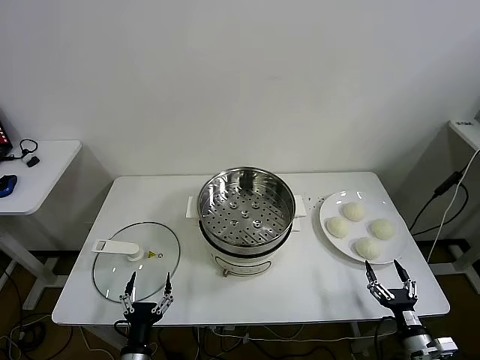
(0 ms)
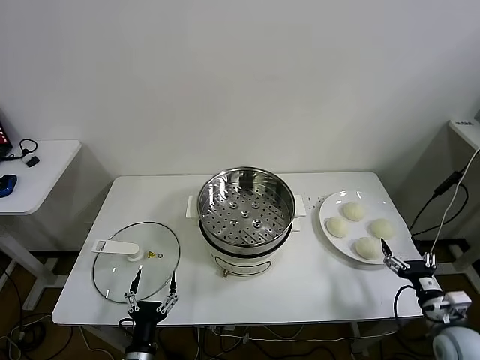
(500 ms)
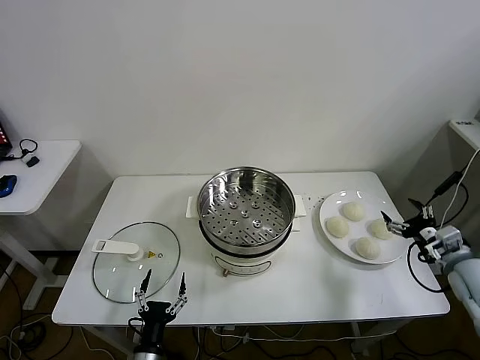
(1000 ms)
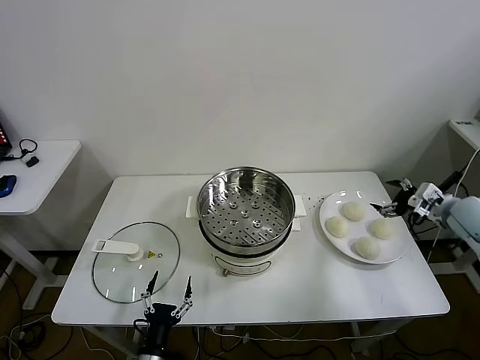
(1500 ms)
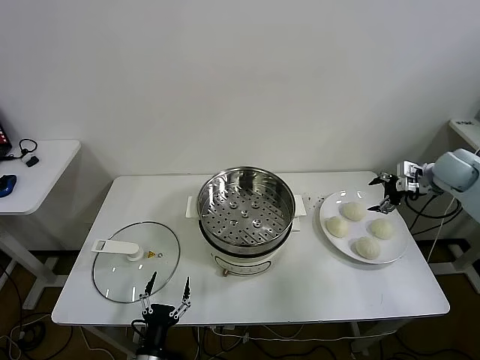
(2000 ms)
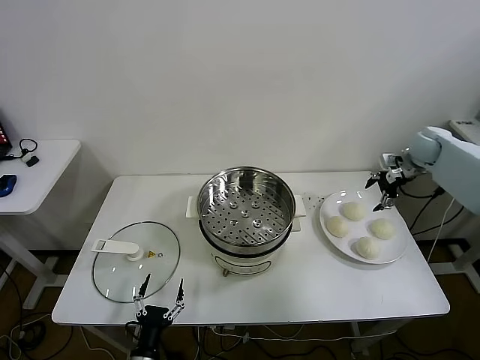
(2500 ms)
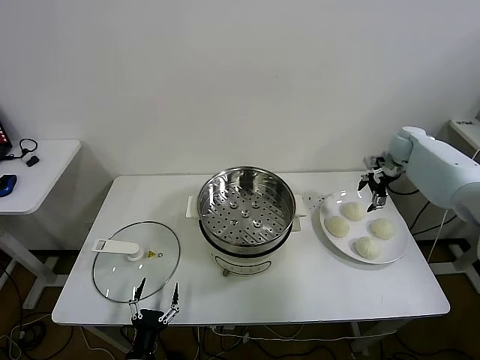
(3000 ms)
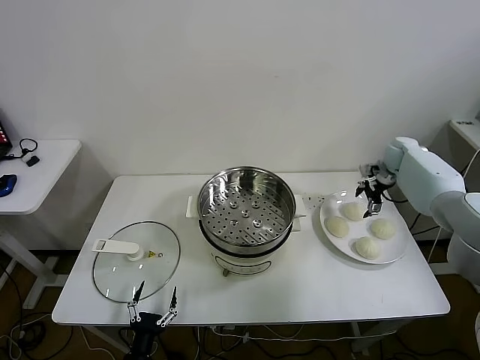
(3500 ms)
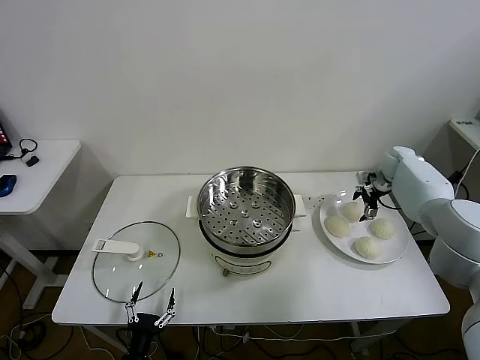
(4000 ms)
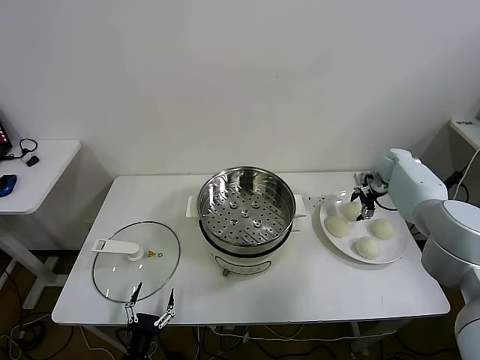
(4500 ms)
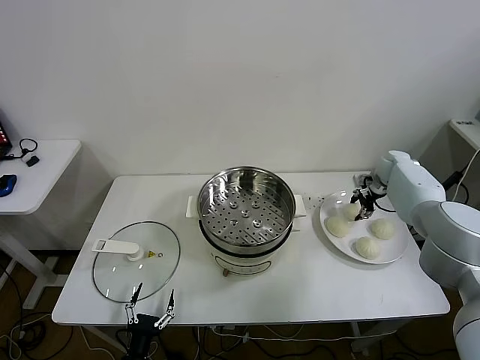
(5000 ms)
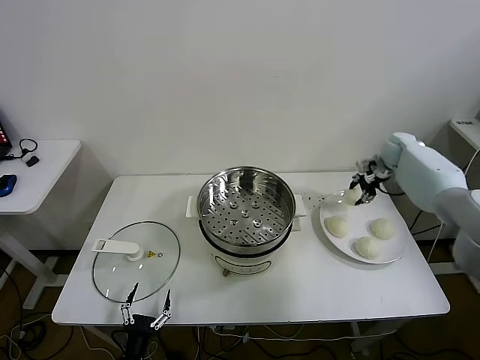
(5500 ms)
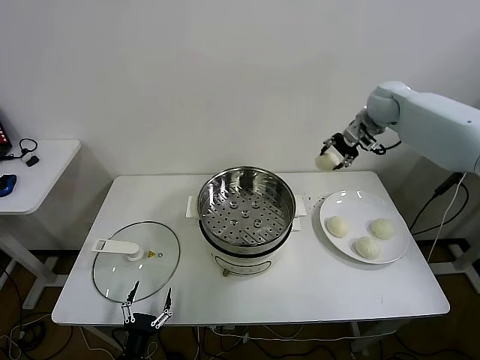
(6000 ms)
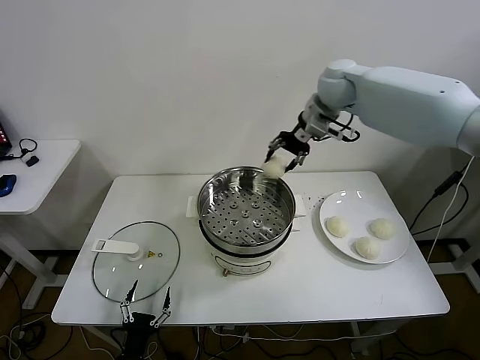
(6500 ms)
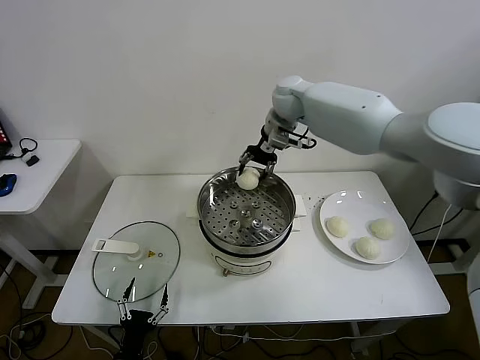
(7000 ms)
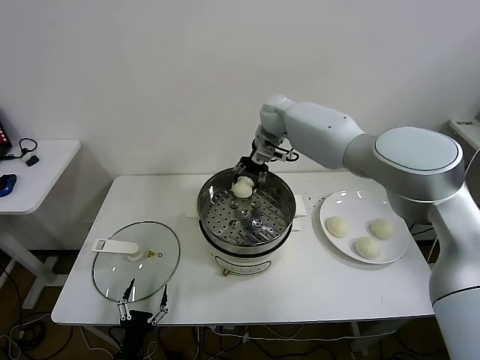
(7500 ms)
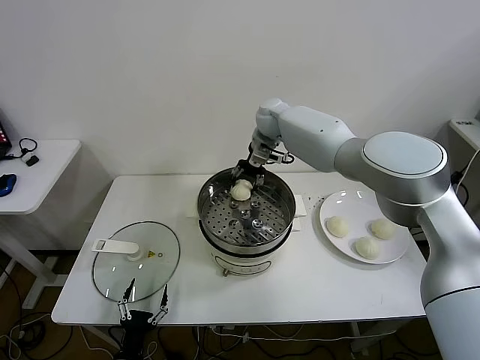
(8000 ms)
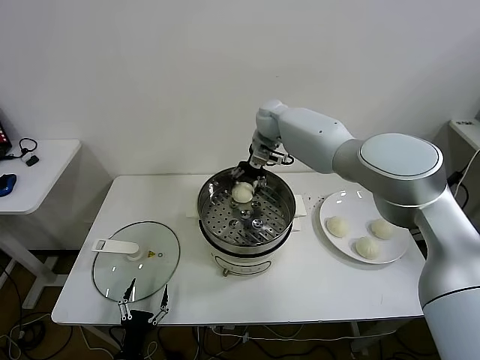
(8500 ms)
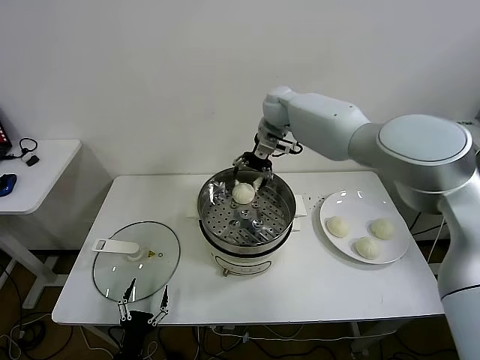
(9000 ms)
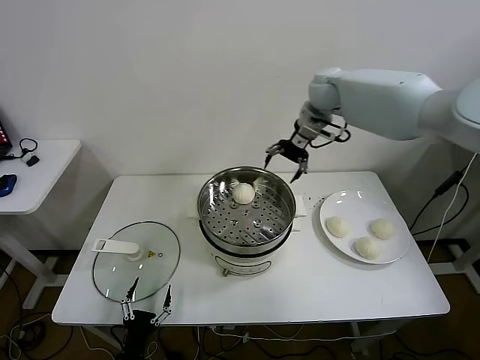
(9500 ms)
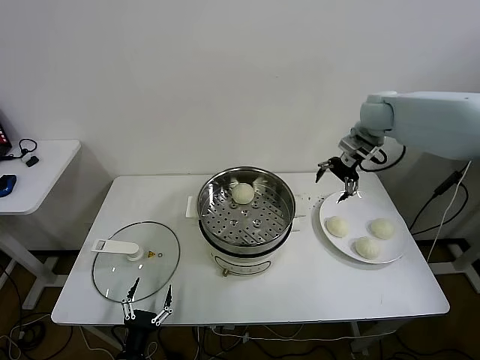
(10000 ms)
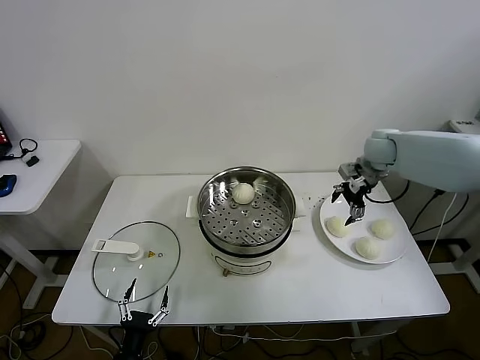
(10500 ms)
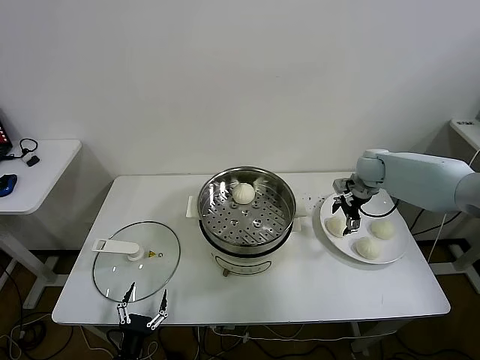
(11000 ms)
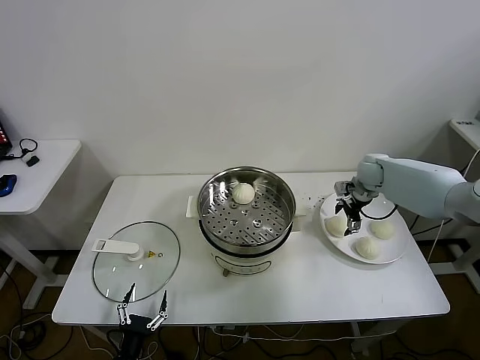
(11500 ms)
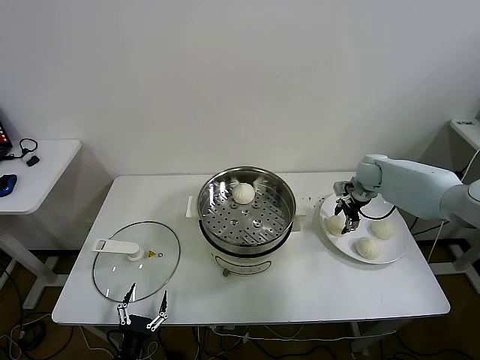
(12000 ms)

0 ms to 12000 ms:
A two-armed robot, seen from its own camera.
Task of the whole recording: take steamed baozi put them in steamer.
Step, 0 ms to 4500 ms: Grasp the baozi in the plate with right gripper.
Step, 5000 ms to 8500 ms: Place the baozi on the steamer with right gripper.
2000 ms to 4000 ms: The right gripper goes approximately 15 cm forward and downward; the left gripper ends up roughly 5 cm from where it was.
4000 ms to 6000 ms: The right gripper travels upward and to the left by some 25 cm, and closes its fingers.
6000 ms to 8000 ms: The right gripper moves to the left, about 25 cm.
8000 ms to 10000 ms: The right gripper is displaced to the right by roughly 25 cm, and opens.
10000 ms to 12000 ms: The right gripper heads downward, covering approximately 15 cm, and closes its fingers.

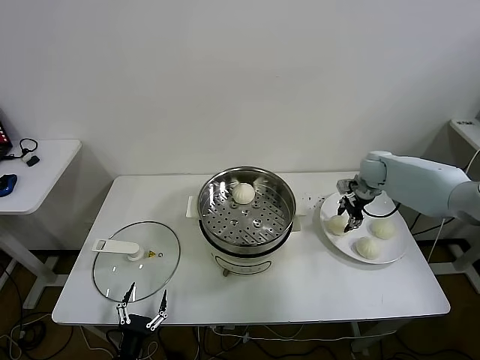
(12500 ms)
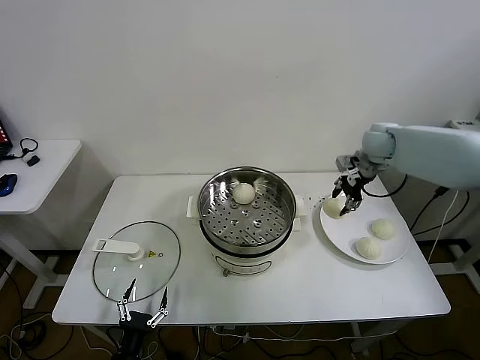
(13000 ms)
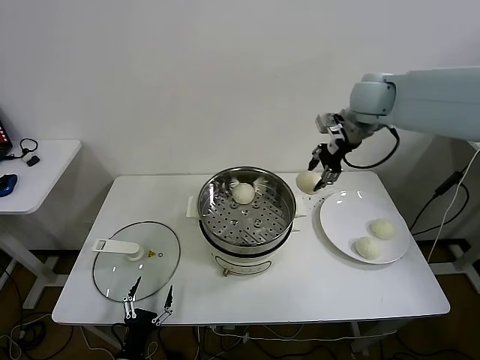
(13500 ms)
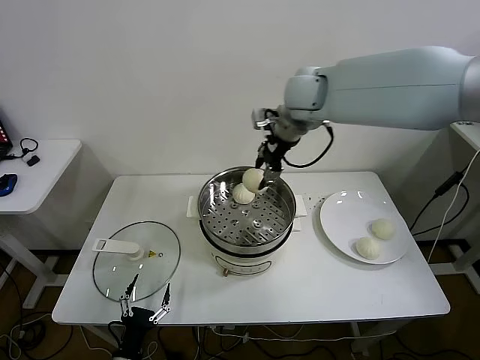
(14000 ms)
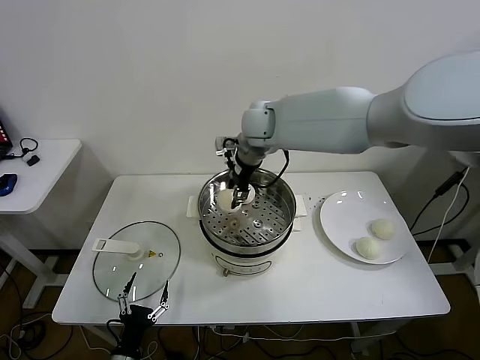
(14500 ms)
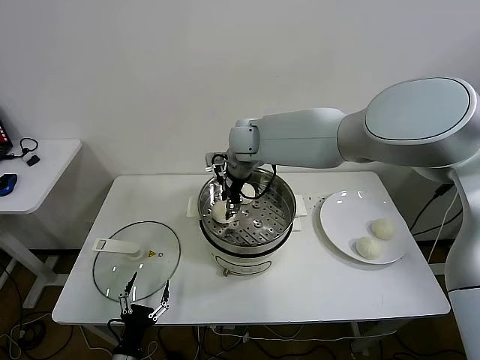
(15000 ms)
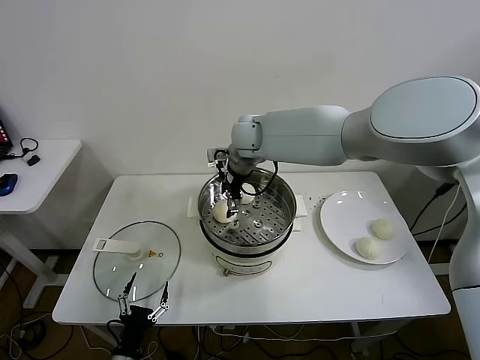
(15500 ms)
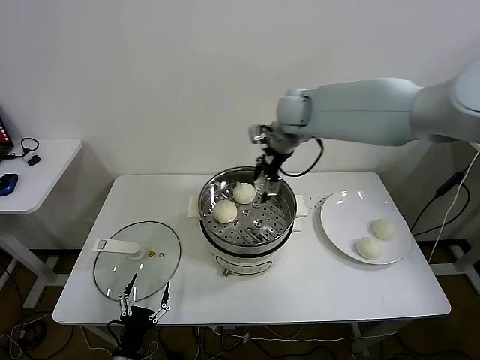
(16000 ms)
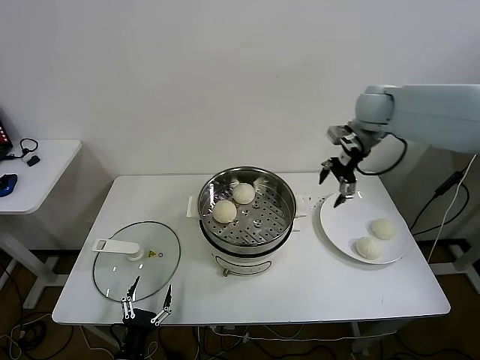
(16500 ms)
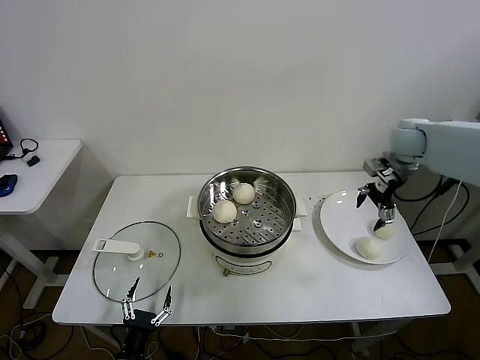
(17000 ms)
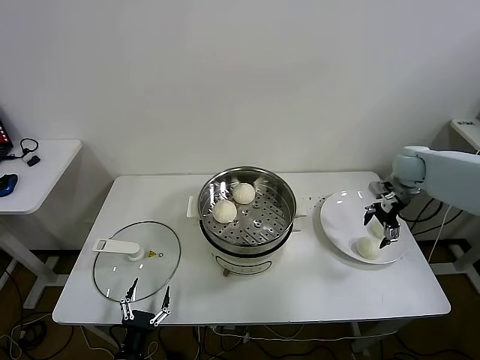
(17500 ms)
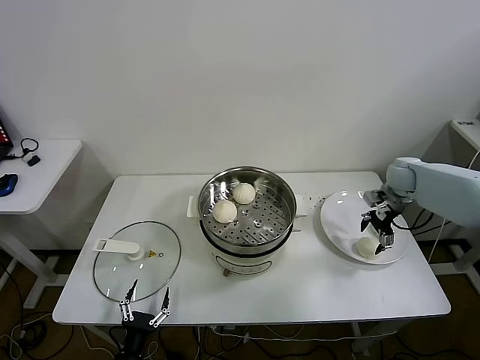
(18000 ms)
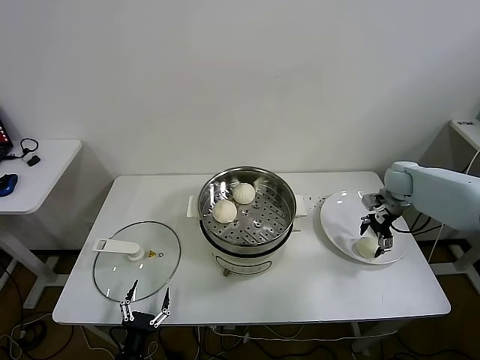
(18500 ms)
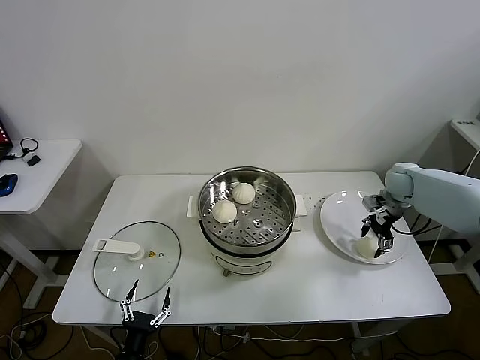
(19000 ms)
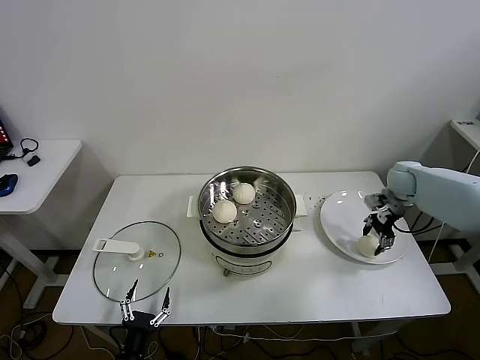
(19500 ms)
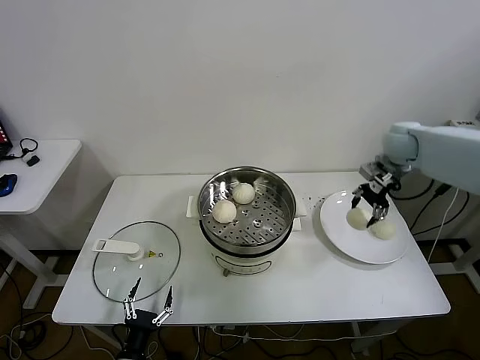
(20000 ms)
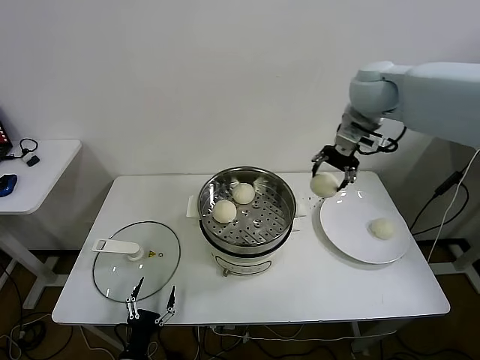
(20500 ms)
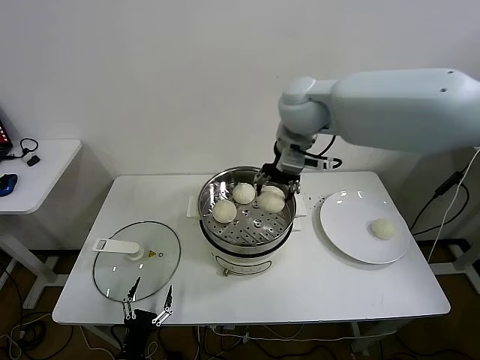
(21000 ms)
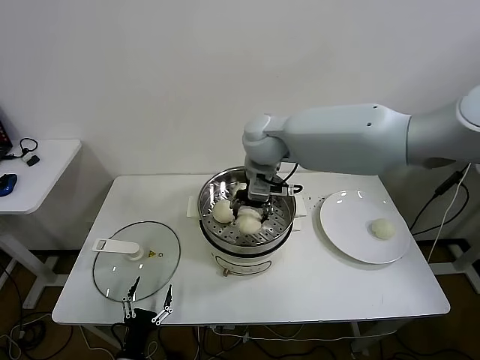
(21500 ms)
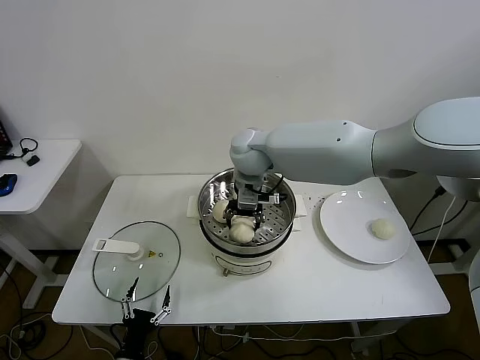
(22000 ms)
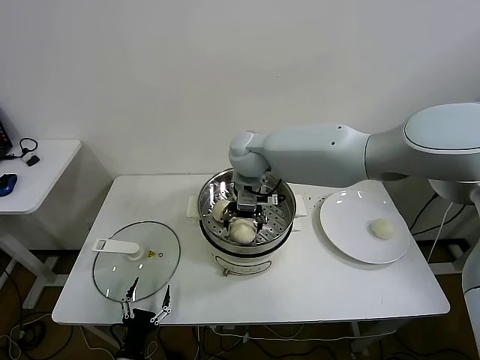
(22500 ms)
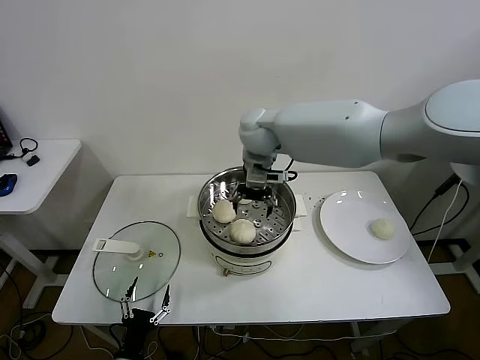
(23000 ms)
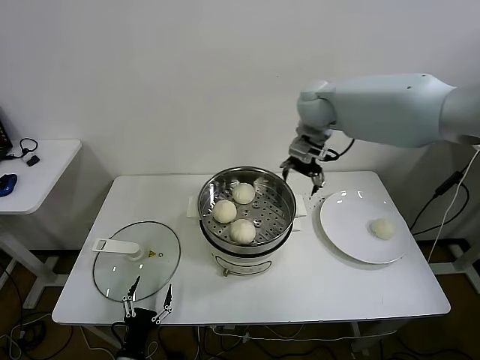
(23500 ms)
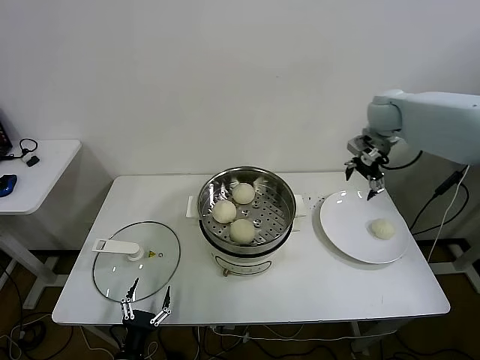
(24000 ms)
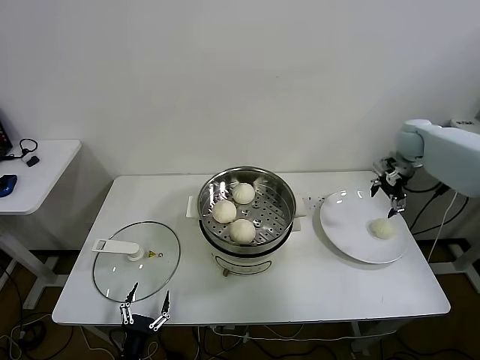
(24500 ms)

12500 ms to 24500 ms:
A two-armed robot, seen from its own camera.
Task of the whole recording: take steamed baozi put them in steamer.
Step, 12500 ms to 15000 ms: Place the baozi on the steamer with right gripper.
Step, 15500 ms to 19000 ms: Grasp the baozi in the plate with right gripper.
Step, 19500 ms to 22500 ms: Place the baozi on the steamer with right gripper.
12500 ms to 14500 ms: The right gripper is displaced to the left and upward by approximately 35 cm.
14500 ms to 16500 ms: The right gripper goes about 25 cm to the right, and opens its fingers.
16500 ms to 18500 ms: The right gripper is displaced downward and to the right by some 25 cm.
18500 ms to 20500 ms: The right gripper is displaced upward and to the left by roughly 35 cm, and closes its fingers.
20500 ms to 22500 ms: The right gripper travels to the left and downward by about 25 cm, and opens up.
22500 ms to 24500 ms: The right gripper is displaced to the right by some 40 cm.

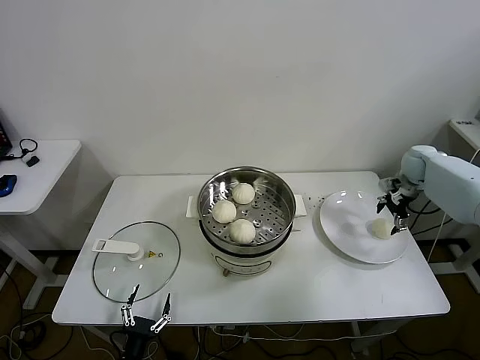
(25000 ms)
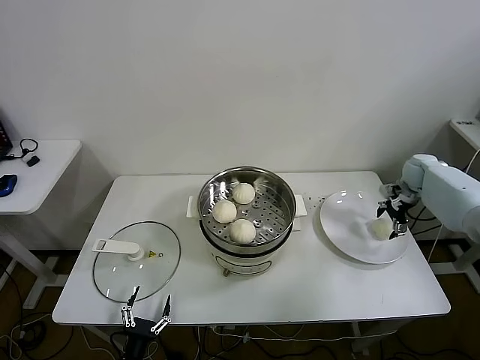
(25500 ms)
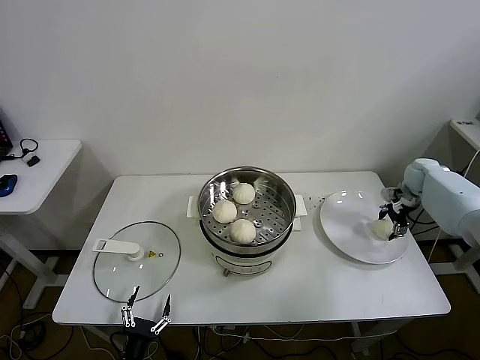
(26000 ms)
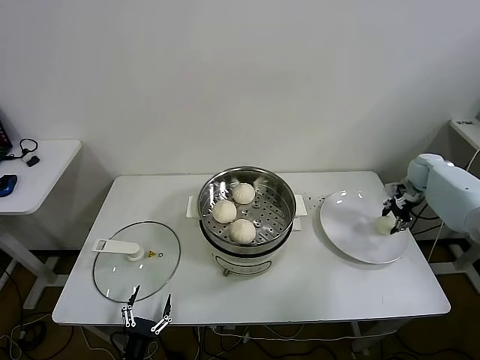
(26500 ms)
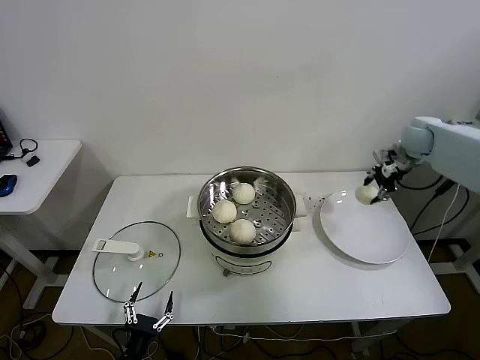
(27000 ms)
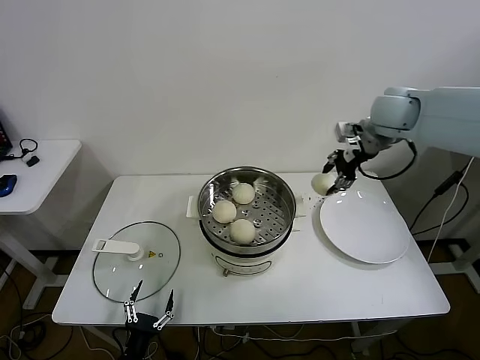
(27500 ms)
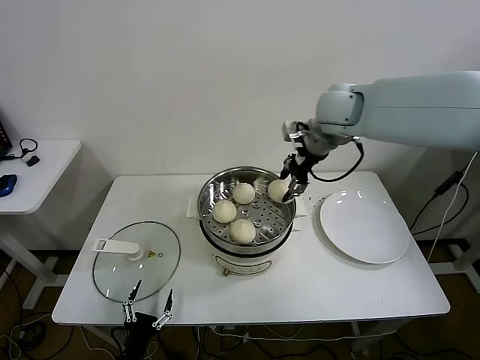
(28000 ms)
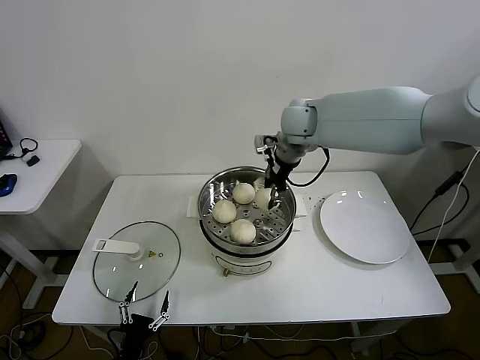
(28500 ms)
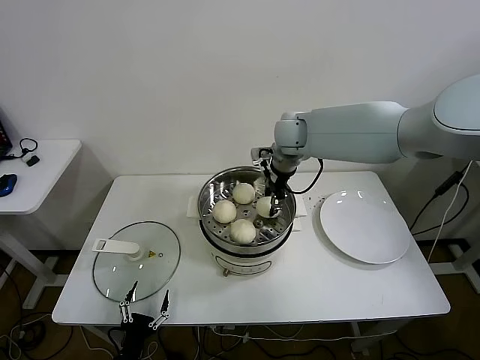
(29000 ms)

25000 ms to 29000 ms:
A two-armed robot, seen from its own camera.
Task of the whole recording: take steamed baozi put them in steamer.
25000 ms to 27000 ms: The right gripper moves upward, roughly 10 cm, and closes its fingers.
27000 ms to 29000 ms: The right gripper travels to the left by about 30 cm.
